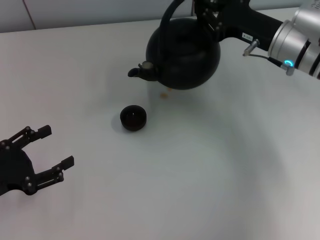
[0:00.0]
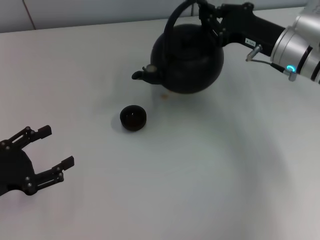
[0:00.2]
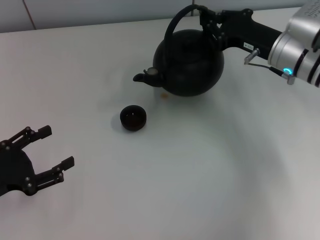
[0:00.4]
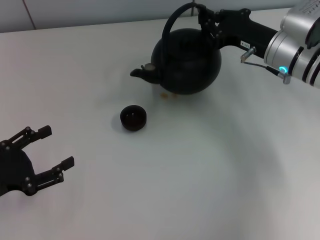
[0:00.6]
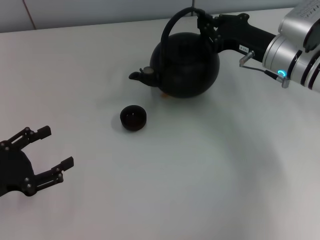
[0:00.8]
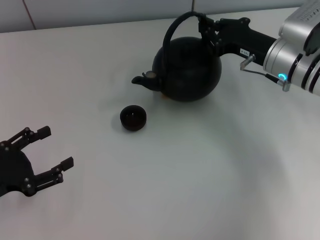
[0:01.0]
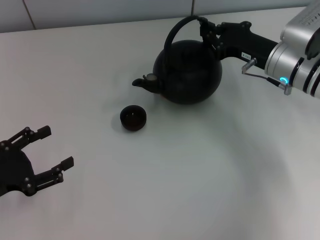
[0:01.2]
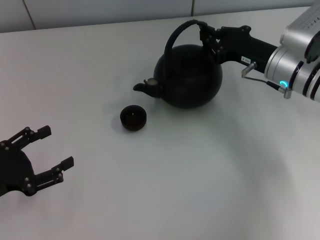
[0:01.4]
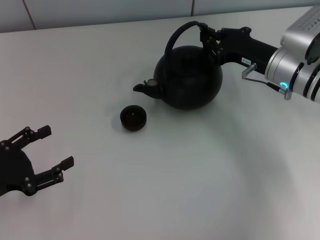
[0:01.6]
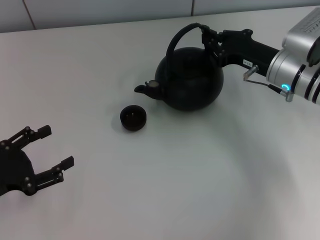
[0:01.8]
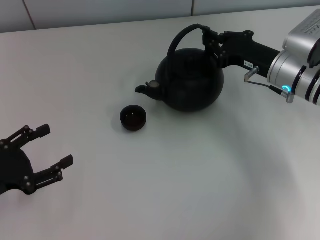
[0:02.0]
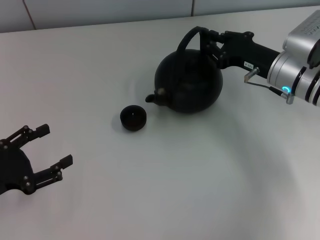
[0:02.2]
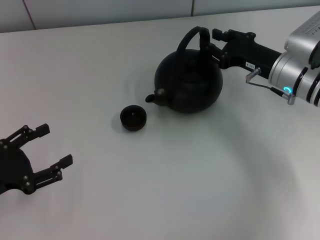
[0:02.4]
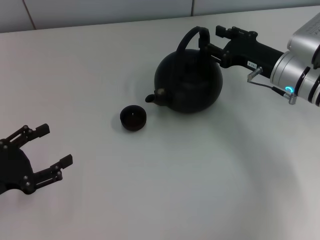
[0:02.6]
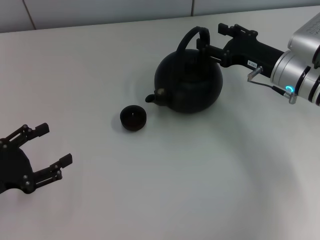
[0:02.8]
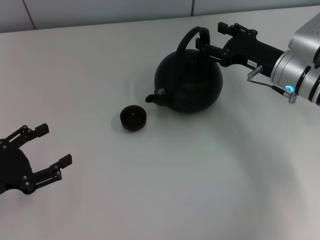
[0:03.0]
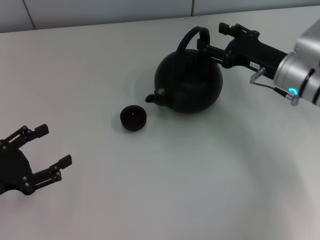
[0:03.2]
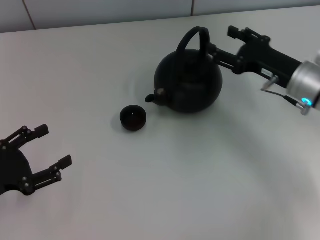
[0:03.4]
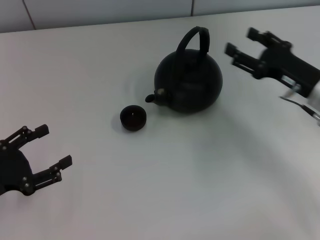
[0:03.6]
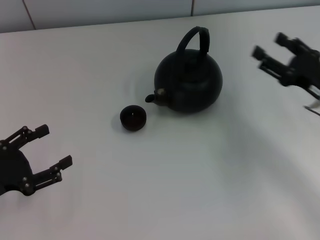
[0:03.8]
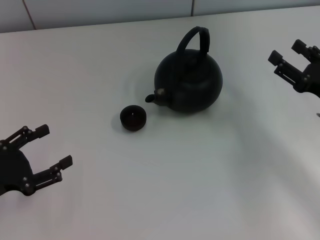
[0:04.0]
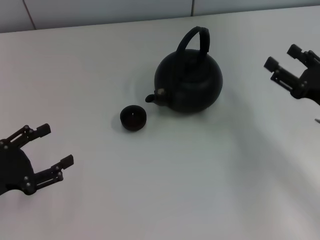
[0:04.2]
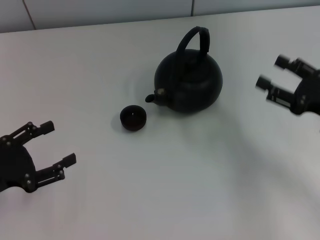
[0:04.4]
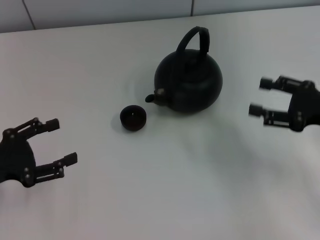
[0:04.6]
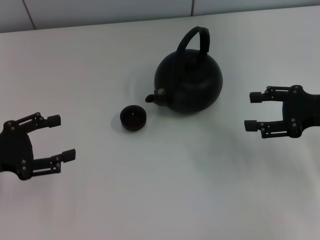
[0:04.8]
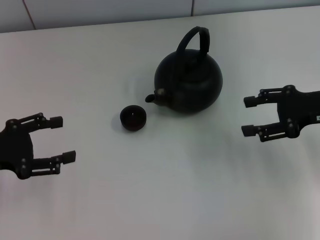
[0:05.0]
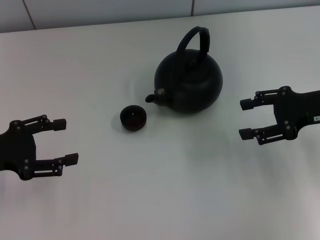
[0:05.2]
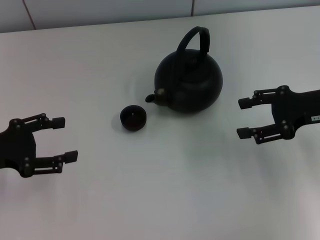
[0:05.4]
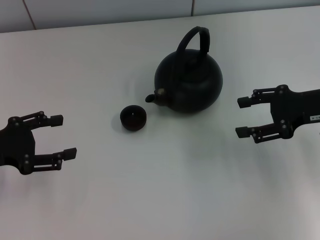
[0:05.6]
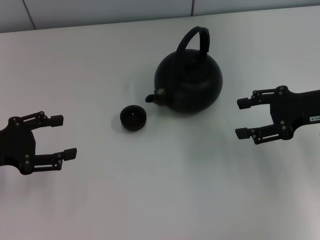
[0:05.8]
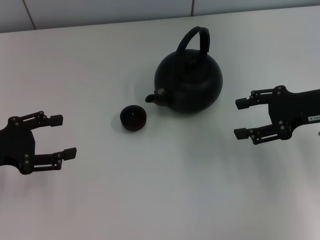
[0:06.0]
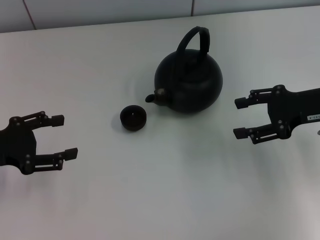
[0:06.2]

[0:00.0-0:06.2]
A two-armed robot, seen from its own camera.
Task of the whole recording: Grasp the handle of the teapot with one hand and pour tea into the teacup.
Step, 0:00.0 to 0:03.6: Put down the teapot with the right gripper.
0:00.0 to 0:01.6: The grippers stay close to where they were, moving slightly.
0:01.6 to 0:03.2: The right gripper opens.
0:03.2 to 0:04.6: The right gripper shifts approximately 15 cm backward and to the right.
0:04.6 to 0:06.2: The right gripper ends up about 5 cm from where it was.

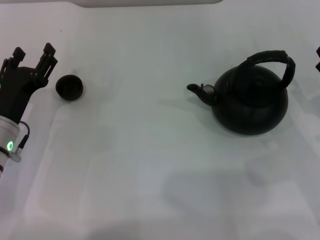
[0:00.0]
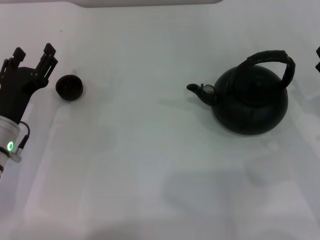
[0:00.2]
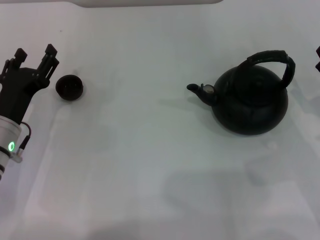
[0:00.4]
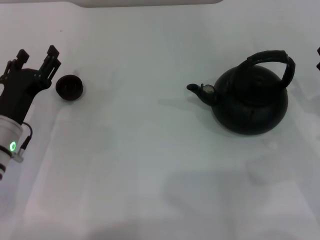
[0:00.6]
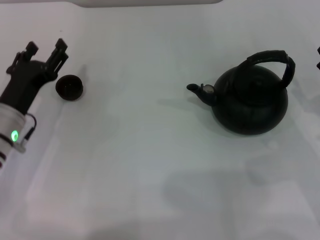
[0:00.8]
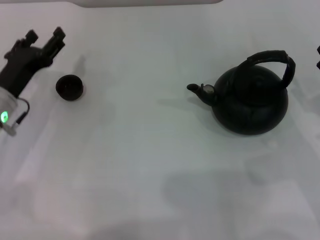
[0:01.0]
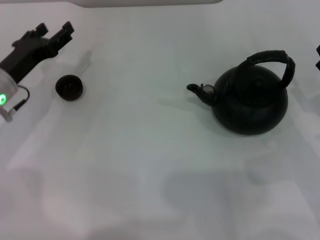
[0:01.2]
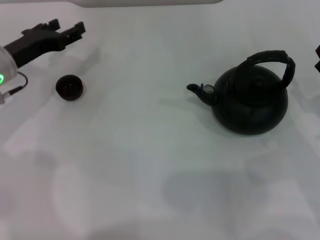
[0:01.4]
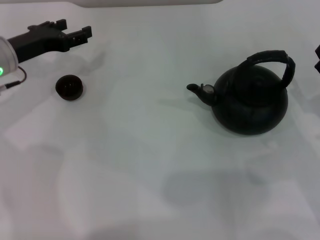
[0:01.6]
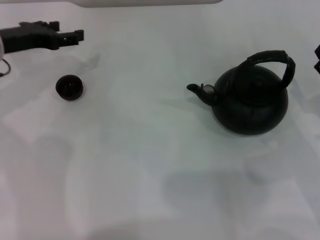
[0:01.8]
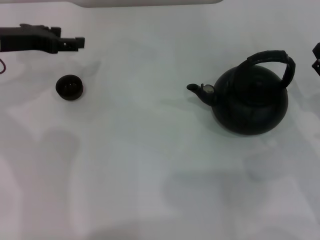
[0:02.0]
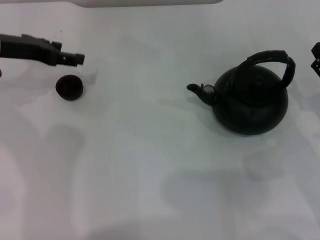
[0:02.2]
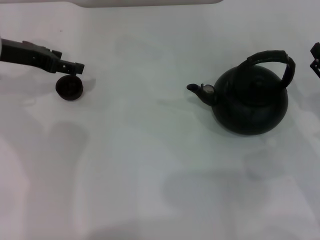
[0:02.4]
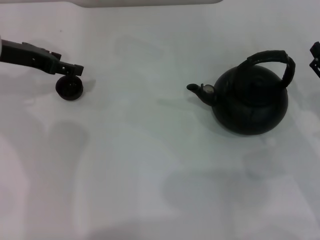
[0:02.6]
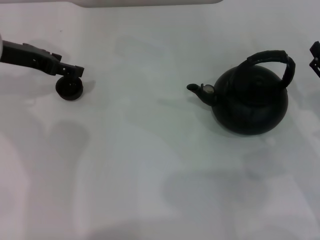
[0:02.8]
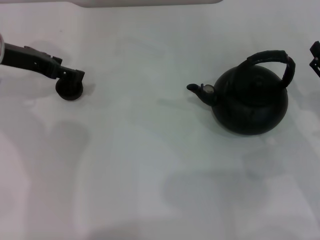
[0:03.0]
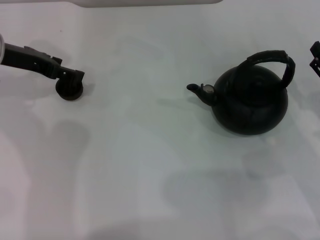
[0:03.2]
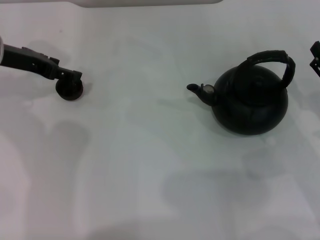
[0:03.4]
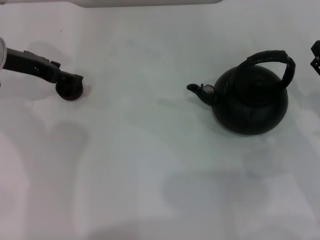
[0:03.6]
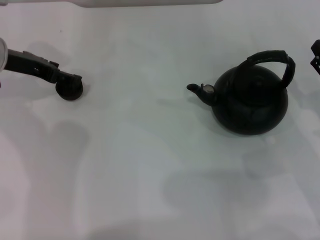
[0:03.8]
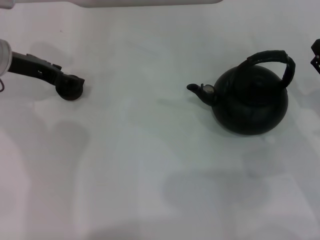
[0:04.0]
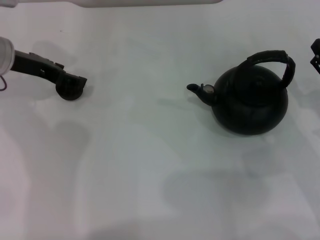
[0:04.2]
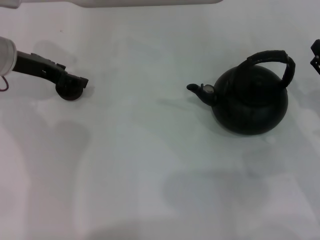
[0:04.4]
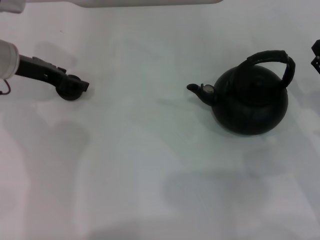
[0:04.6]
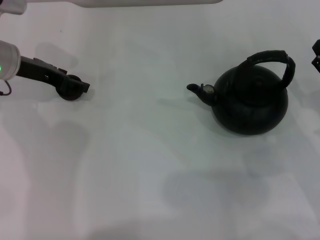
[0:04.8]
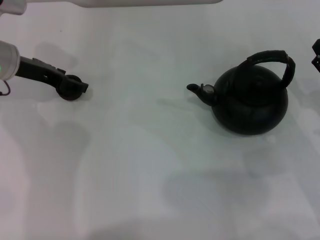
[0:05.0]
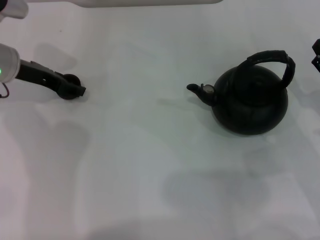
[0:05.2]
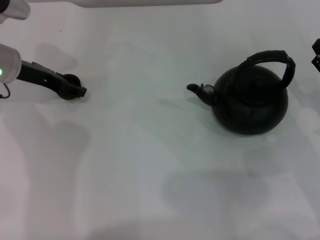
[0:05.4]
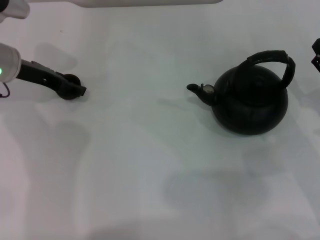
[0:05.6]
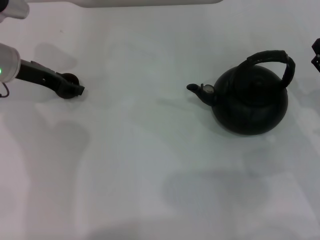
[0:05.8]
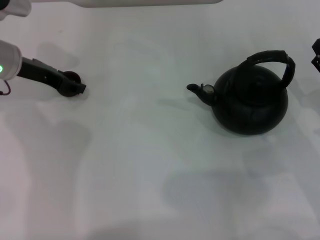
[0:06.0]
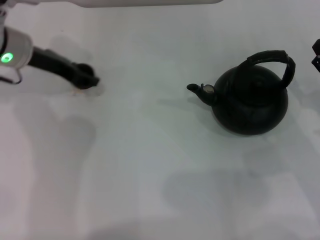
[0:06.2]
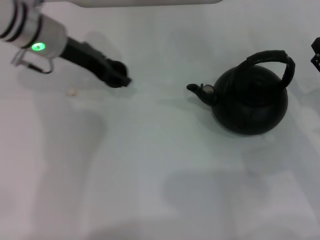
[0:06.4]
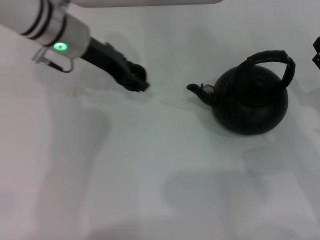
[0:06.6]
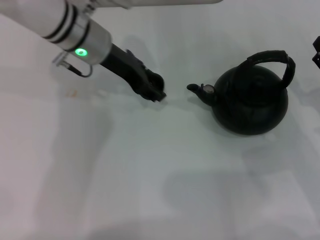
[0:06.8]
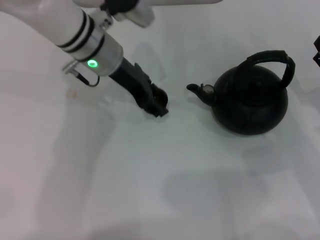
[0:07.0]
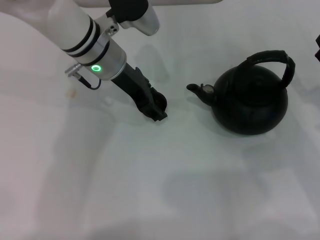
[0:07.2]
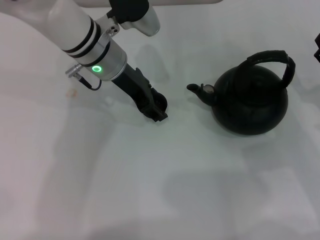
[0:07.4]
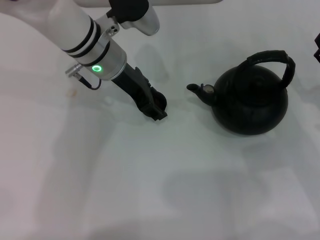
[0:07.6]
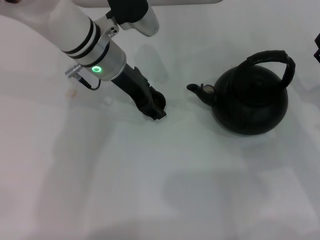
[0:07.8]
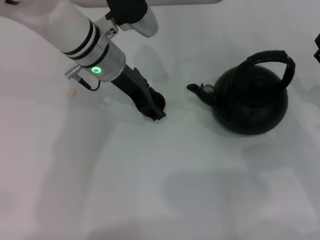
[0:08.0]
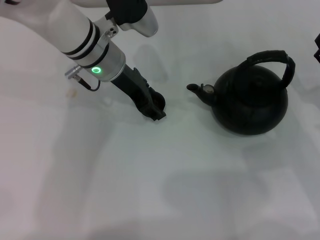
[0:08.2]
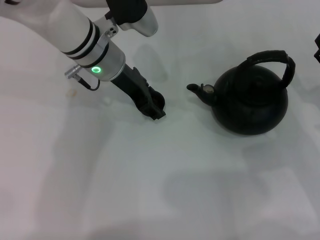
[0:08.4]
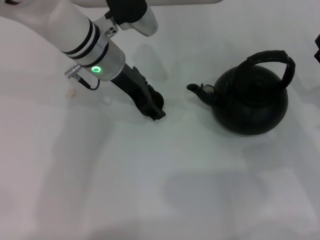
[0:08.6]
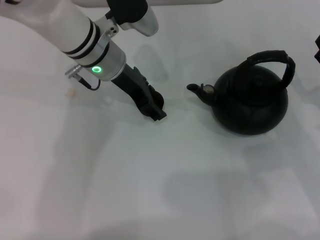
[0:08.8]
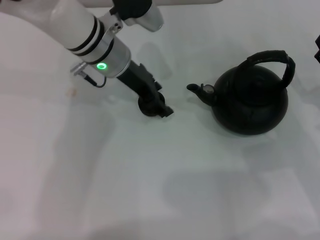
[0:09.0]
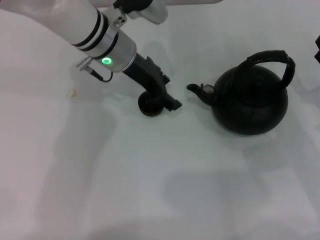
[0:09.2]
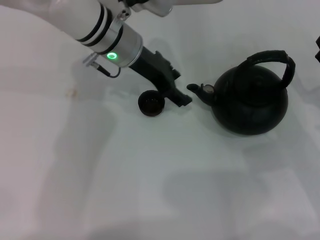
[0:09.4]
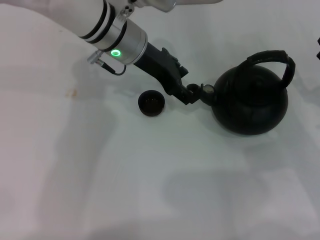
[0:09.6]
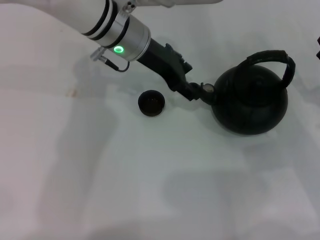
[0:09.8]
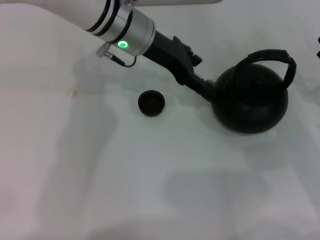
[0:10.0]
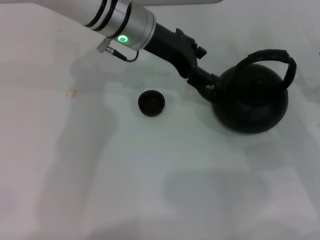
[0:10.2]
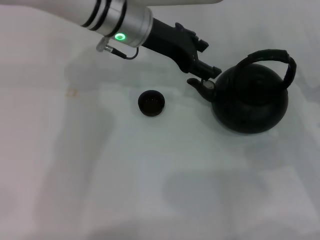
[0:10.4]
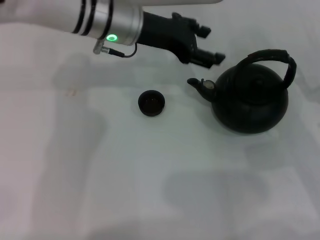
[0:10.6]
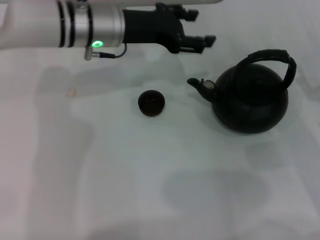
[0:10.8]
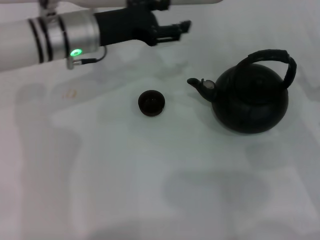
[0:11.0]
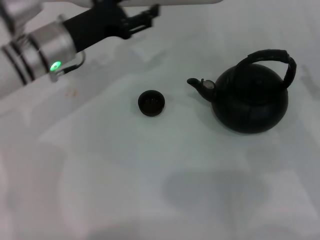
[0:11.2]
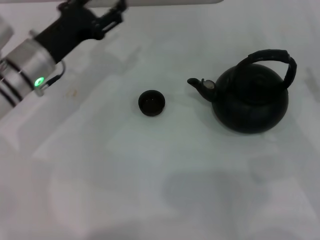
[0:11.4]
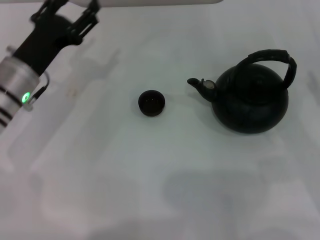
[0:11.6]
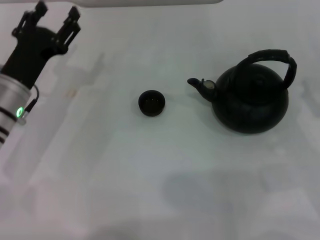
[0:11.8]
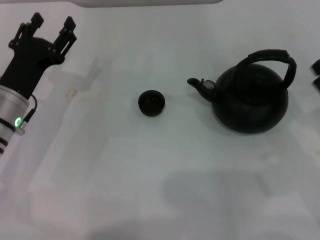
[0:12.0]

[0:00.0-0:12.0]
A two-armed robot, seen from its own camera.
Task of the whole recording: Grasp the handle of the teapot with one hand and pour tea into the teacup.
Step, 0:00.0 to 0:06.0: Pick up the teacup with the left gripper.
Step, 0:06.2 to 0:09.6: Place the teacup in the center of view with the left gripper.
0:00.0 to 0:01.6: The left gripper shifts some 15 cm forward and upward.
0:01.6 to 0:03.0: The left gripper changes place by some 5 cm.
0:03.0 to 0:04.4: There are only small adjustments of the grippers.
0:04.4 to 0:06.0: The left gripper closes up.
0:06.0 to 0:07.6: The left gripper moves to the right, some 15 cm.
0:07.6 to 0:09.0: The left gripper opens up.
0:10.4 to 0:12.0: The left gripper moves to the left, backward and downward, roughly 25 cm.

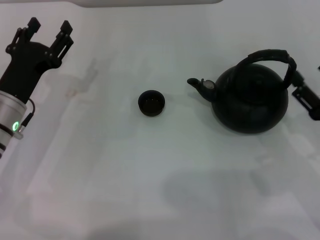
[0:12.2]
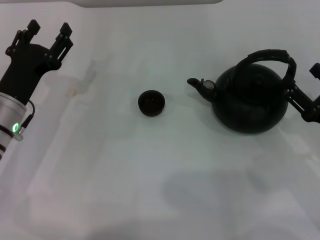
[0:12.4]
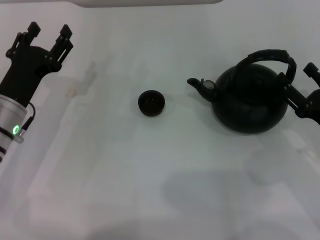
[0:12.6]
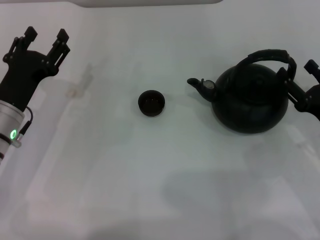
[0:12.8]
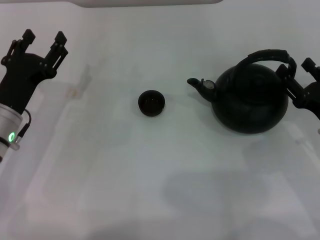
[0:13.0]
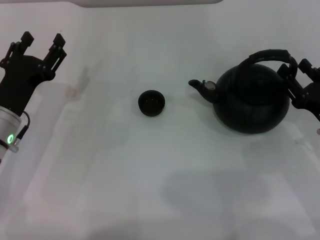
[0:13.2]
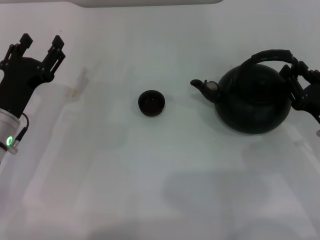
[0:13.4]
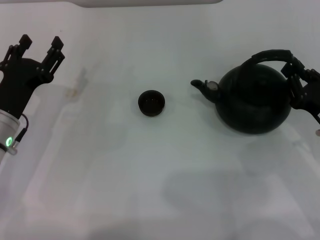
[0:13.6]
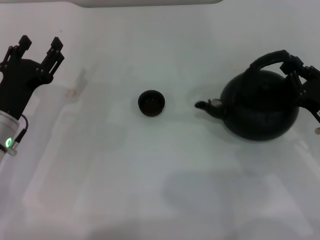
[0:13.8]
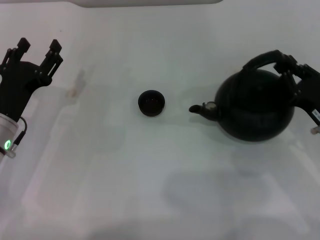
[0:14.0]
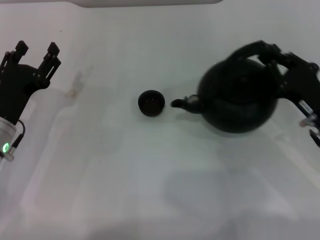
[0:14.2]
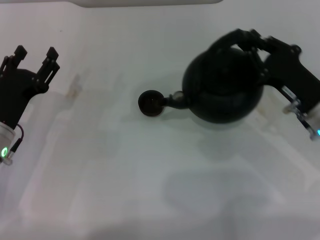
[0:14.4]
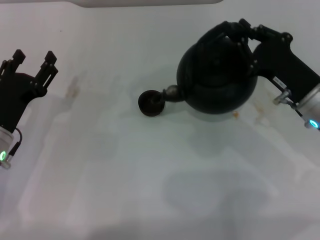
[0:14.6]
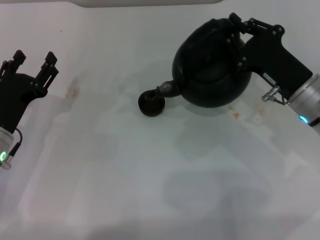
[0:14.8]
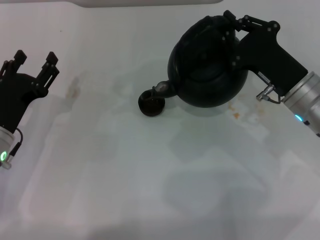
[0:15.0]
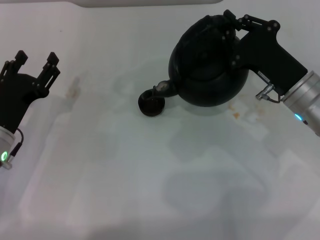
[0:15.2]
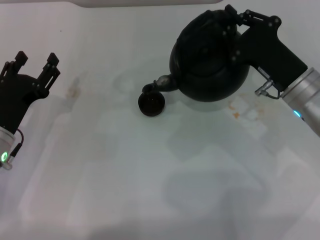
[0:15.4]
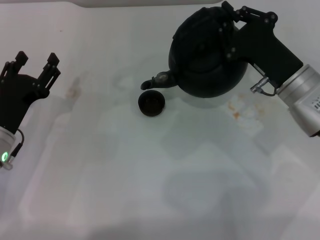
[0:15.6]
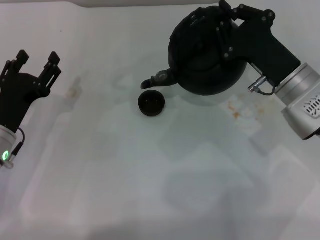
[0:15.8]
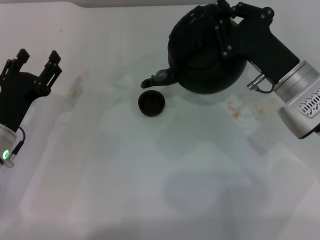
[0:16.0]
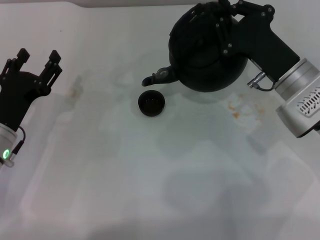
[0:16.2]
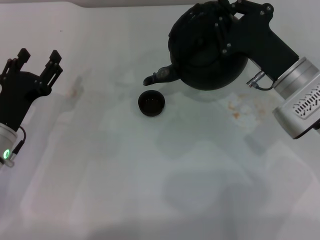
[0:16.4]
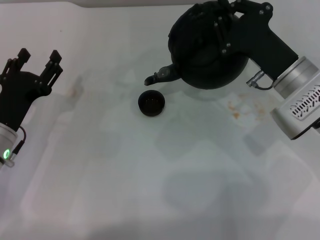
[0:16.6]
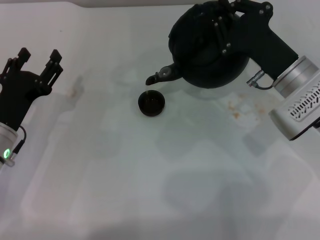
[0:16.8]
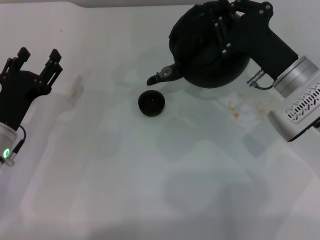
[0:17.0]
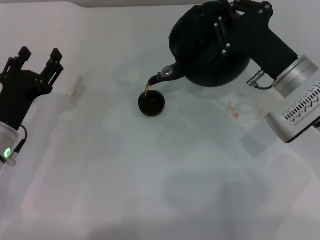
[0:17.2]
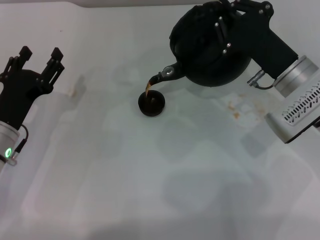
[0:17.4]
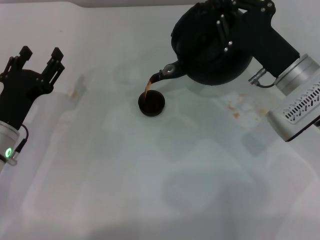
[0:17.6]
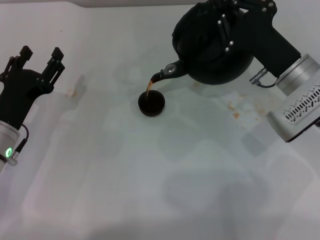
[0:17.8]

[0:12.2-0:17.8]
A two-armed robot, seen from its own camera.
Task of the whole recording: Grasp the handle of the teapot with one hand and pour tea into the teacup.
0:12.2 to 0:13.6: The right gripper closes up.
0:13.6 to 0:15.0: The right gripper heads to the left and forward, covering roughly 10 cm, and closes its fingers.
0:15.0 to 0:16.4: The grippers stay close to where they were, moving slightly.
0:16.4 to 0:17.8: There are only small adjustments of the grippers.
